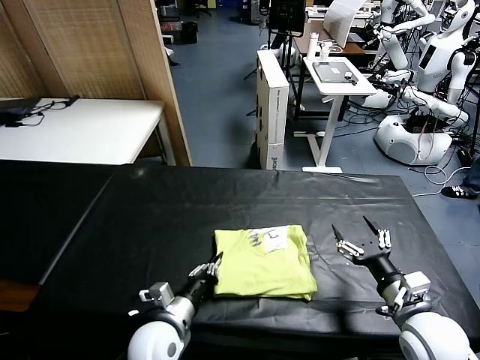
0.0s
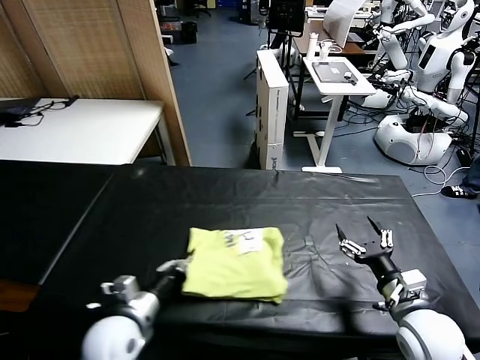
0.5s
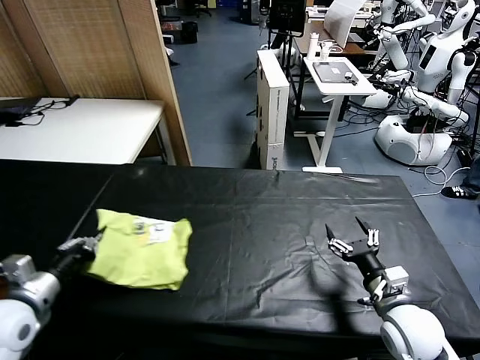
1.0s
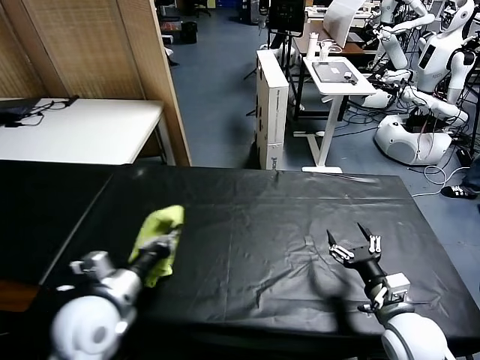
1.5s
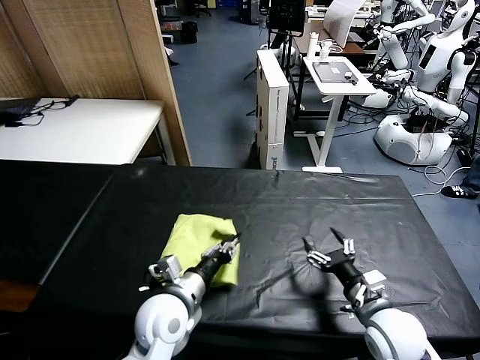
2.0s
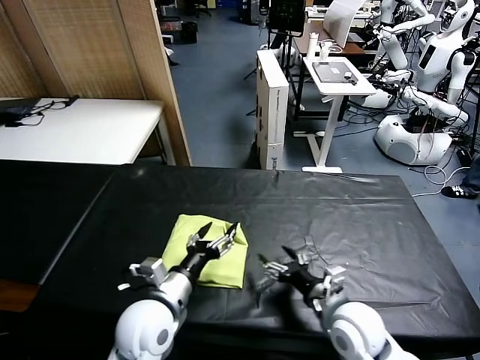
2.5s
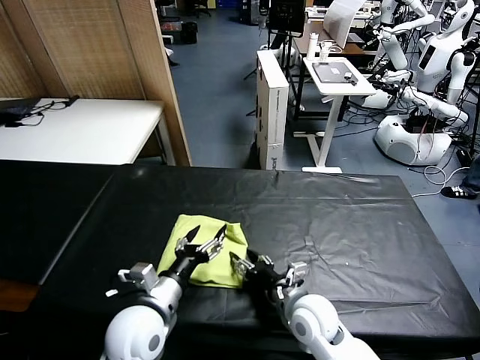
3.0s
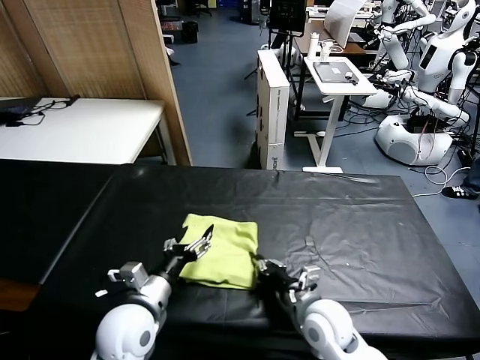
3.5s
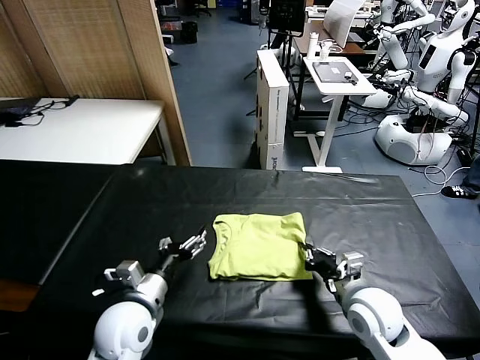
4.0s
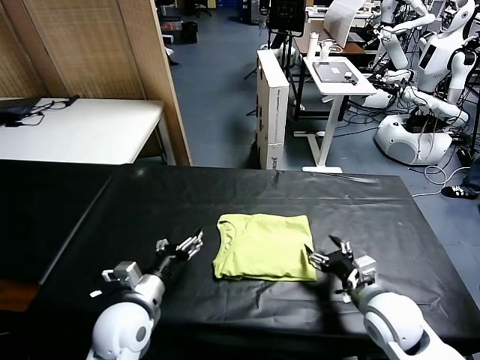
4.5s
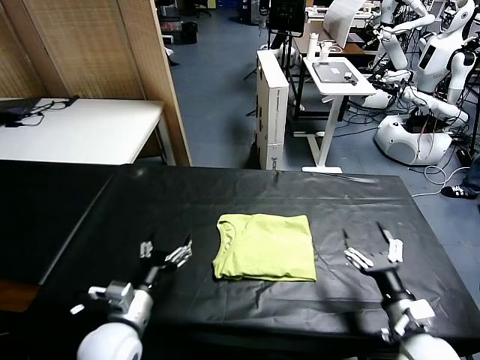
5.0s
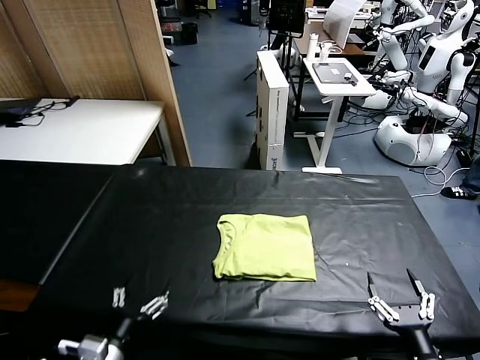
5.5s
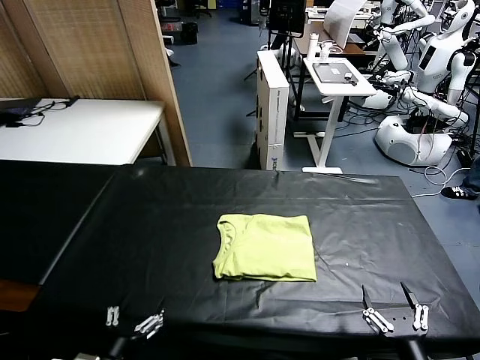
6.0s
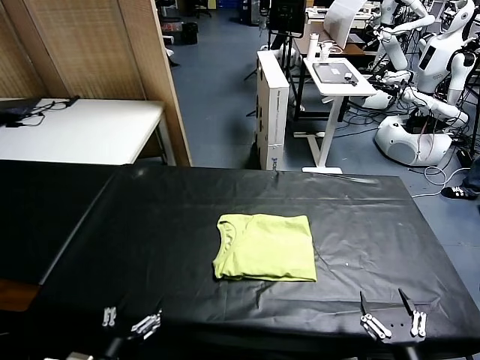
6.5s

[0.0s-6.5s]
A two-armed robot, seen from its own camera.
Task of the whole recording: fold and organize the clothes.
Step, 0.0s to 2.0s: Flip the folded clothes over with left gripper.
Step, 2.5s to 4.5s: Drag the clothes to the center of the table.
0.0s to 2.0s: The right gripper shifts by about 5 cm. The left gripper shifts approximately 5 cm upward, and moves approximately 20 cm to the left and comes back.
2.0s to 4.5s: The right gripper travels to the left and back again, about 15 cm each way, and closes, then opens again, while the left gripper shifts about 5 cm to the left, and opens its fingers.
4.5s to 6.5s: Both grippers travel together backward, approximately 20 cm.

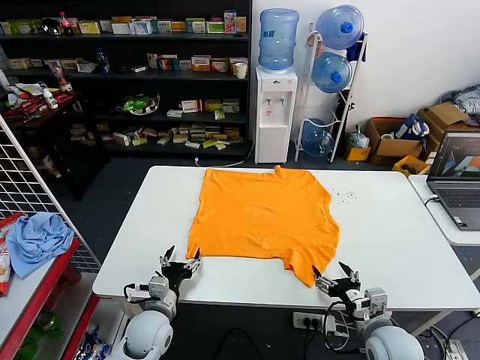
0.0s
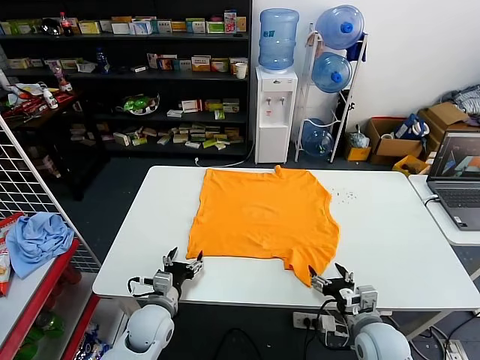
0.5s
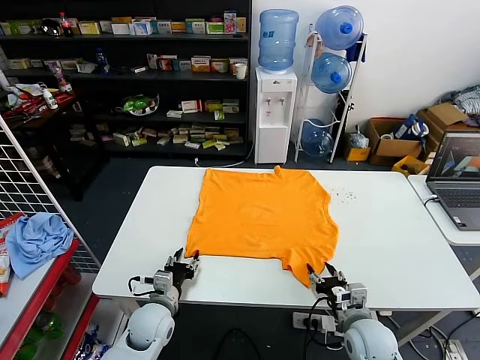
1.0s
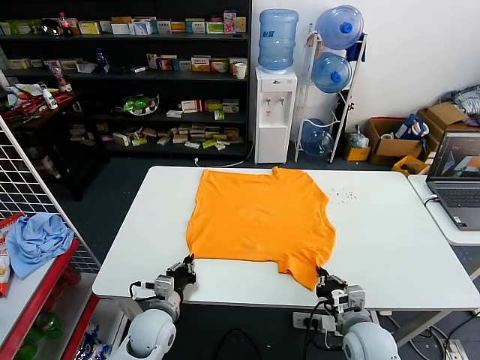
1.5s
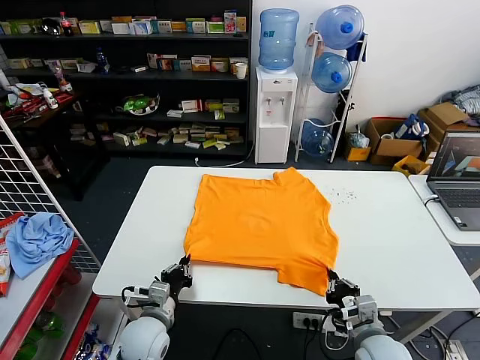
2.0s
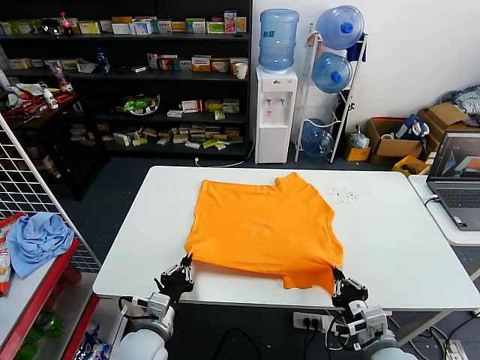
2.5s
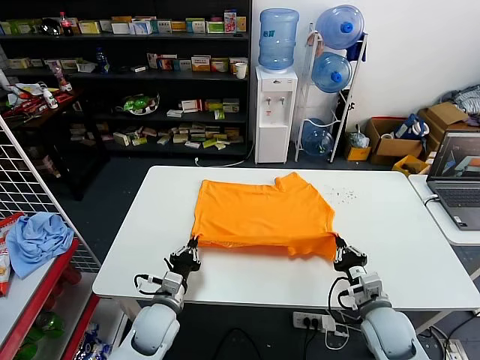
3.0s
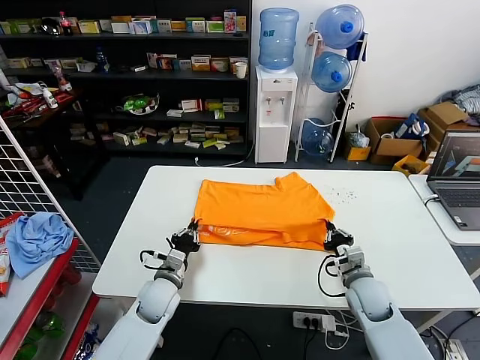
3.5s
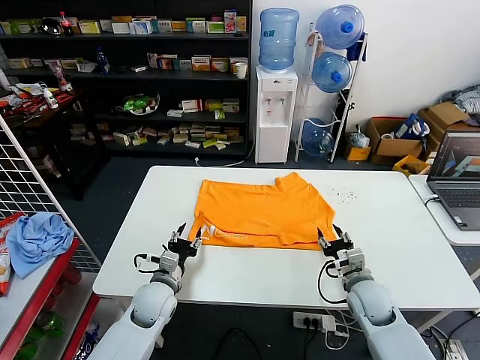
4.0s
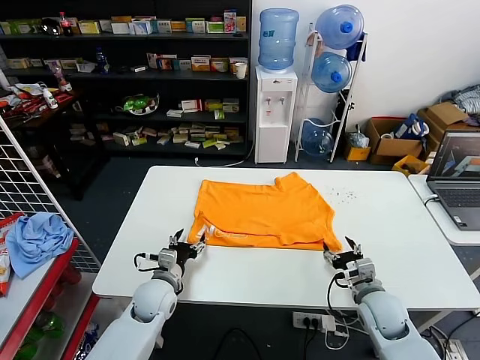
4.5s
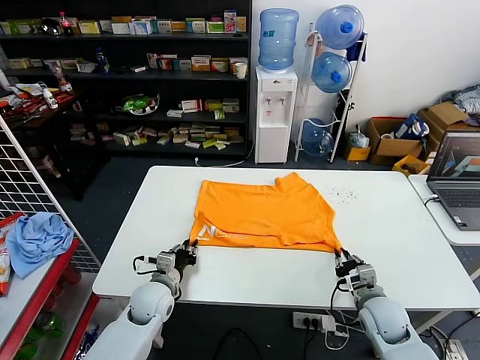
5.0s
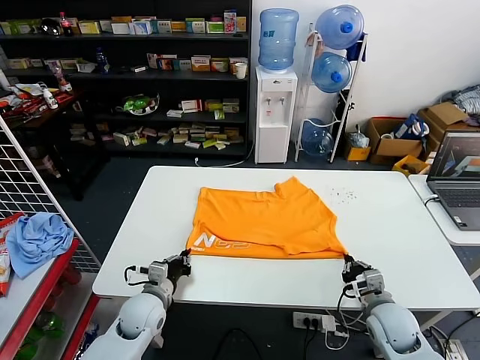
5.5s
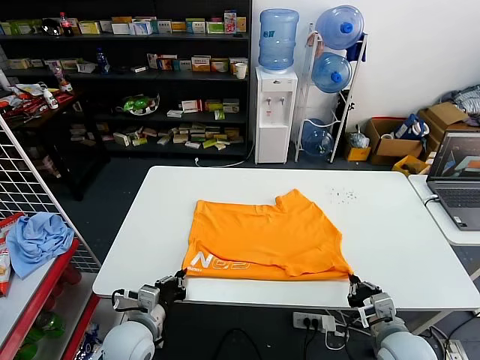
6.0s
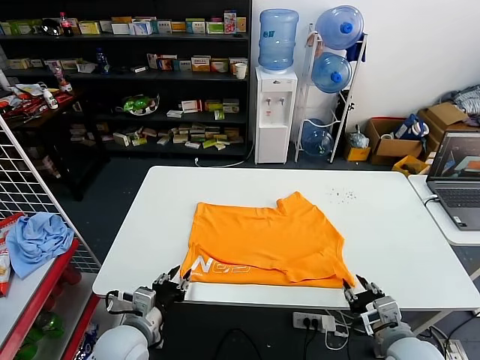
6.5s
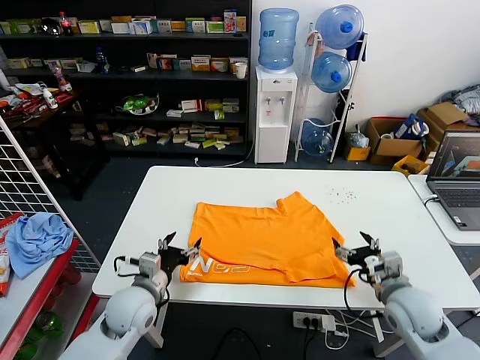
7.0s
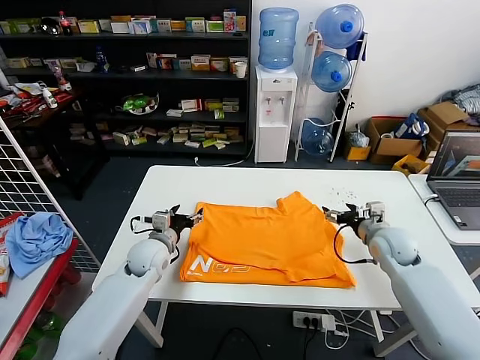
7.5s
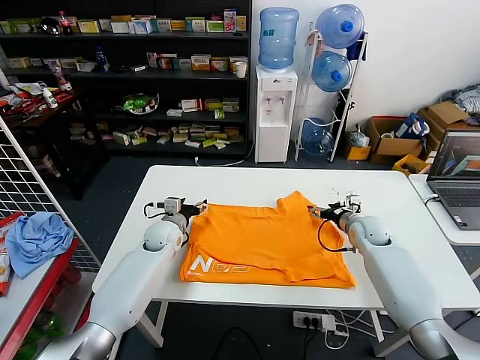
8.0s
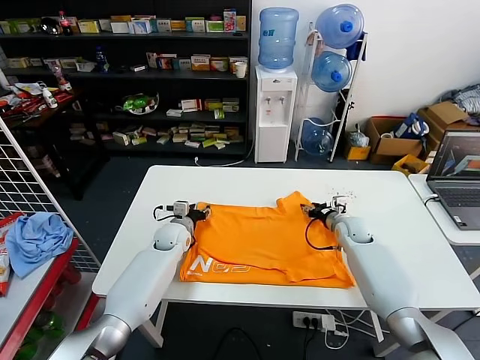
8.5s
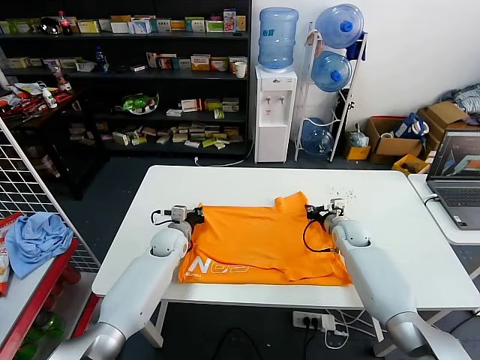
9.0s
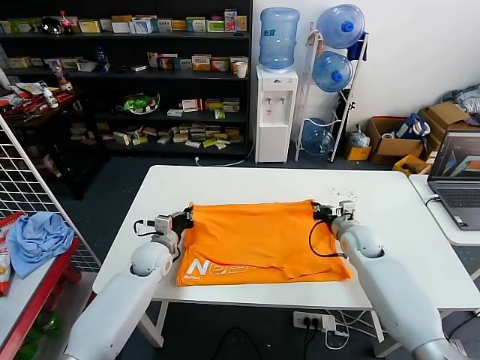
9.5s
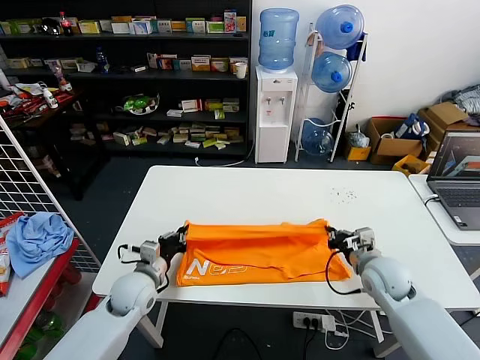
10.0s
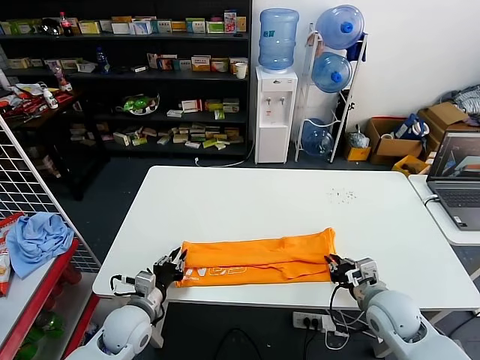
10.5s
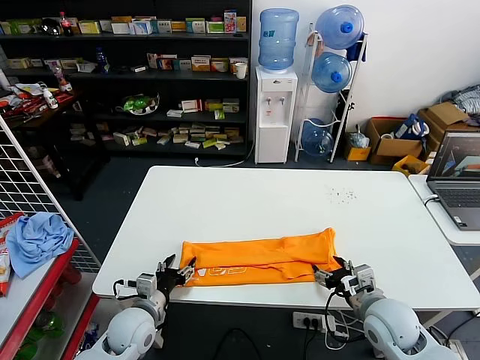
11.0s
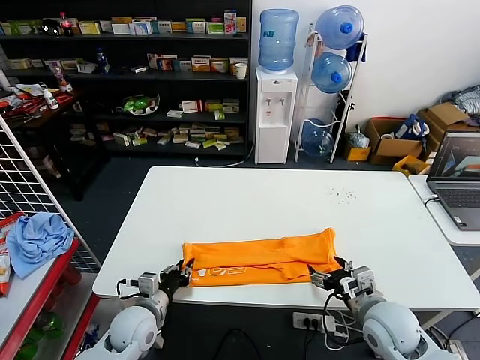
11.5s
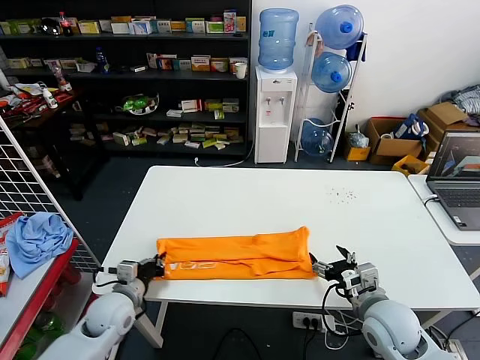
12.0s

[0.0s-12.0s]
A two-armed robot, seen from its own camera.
Task of the whole recording: fold and organize the clothes.
Step, 0.0s to 1.0s: use both grippers simultaneously to clamp the lower edge of the clothing fabric.
Step, 1.5s to 3.5s: use both grippers to drag the lower edge of the fabric forward and fold it over the upper edge.
Step, 4.0s to 6.0s: Drag the clothes downward with both gripper.
Step, 6.5s to 8.5s: use both grippers simultaneously to clamp the upper edge of the clothing fabric.
Step, 9.5s to 10.5s: use both grippers to drag the upper edge of the fabric backward and fold it over the lower edge.
2.0s to 4.0s: The right gripper heads forward, covering about 10 cm, and opens; the left gripper shifts approximately 10 cm forward, and opens its fingers.
4.0s to 6.0s: Both grippers travel together backward, approximately 10 cm. The right gripper closes up; the left gripper closes.
6.0s to 8.0s: Both grippers move forward, roughly 25 cm. The left gripper opens its fingers; the right gripper opens its fingers.
8.0s to 10.0s: Both grippers travel together backward, approximately 15 cm. The right gripper closes up. Meanwhile the left gripper closes up.
10.0s to 12.0s: The right gripper is displaced backward by some 10 cm, and opens, while the left gripper goes approximately 5 cm backward, and opens, then closes again.

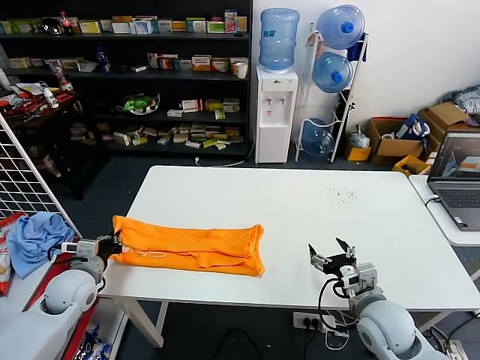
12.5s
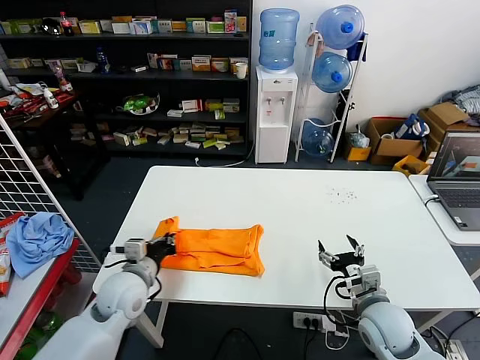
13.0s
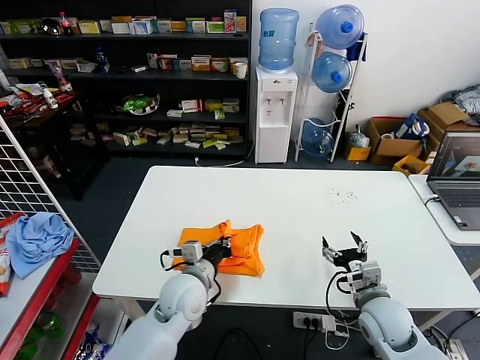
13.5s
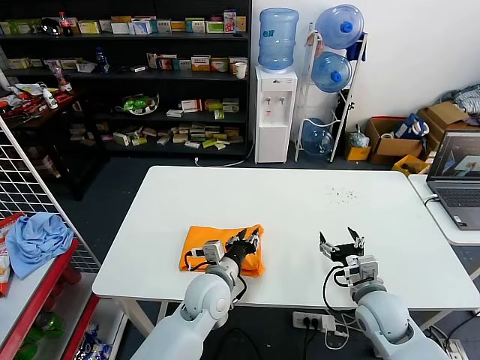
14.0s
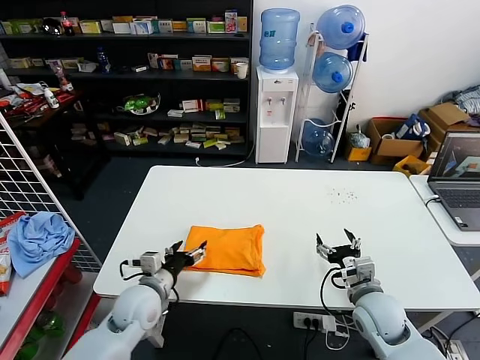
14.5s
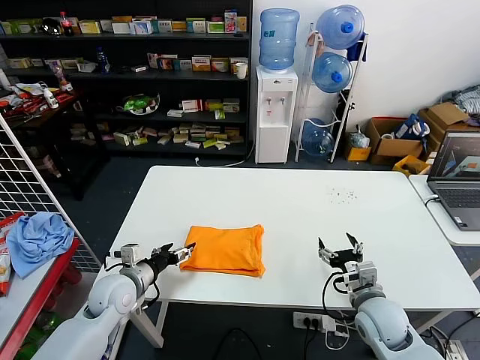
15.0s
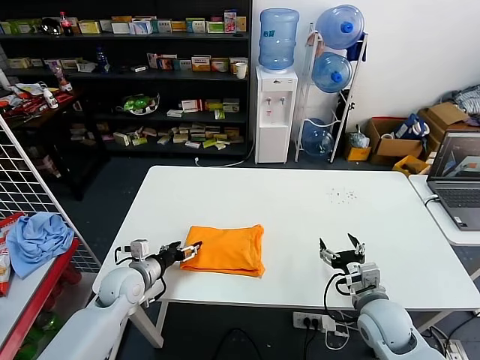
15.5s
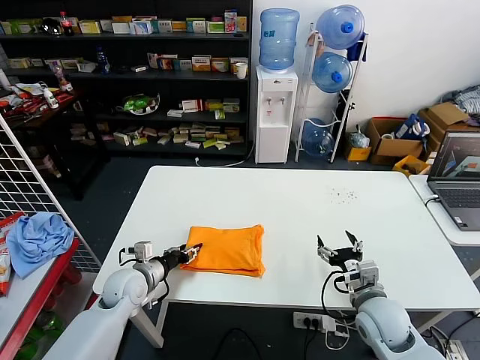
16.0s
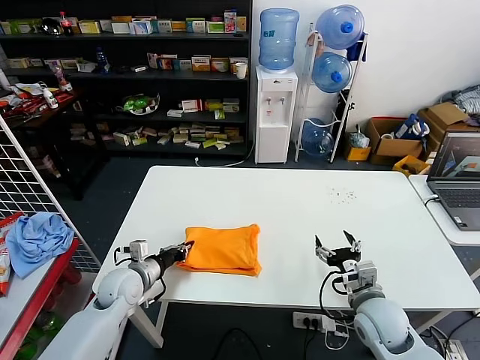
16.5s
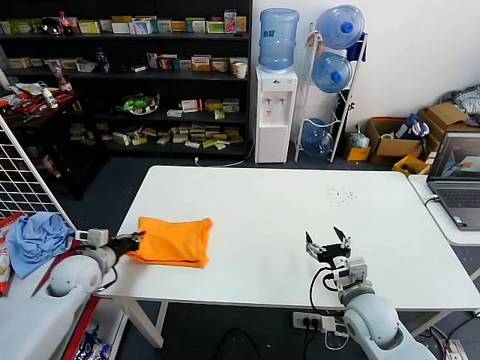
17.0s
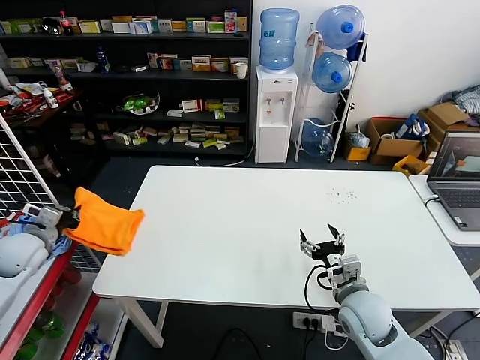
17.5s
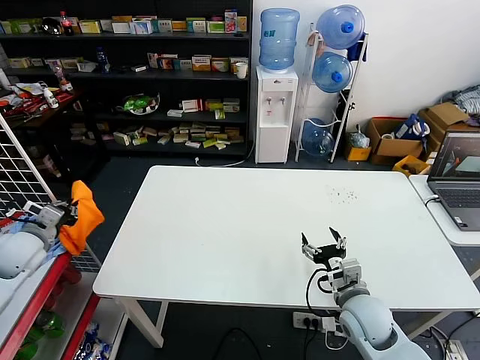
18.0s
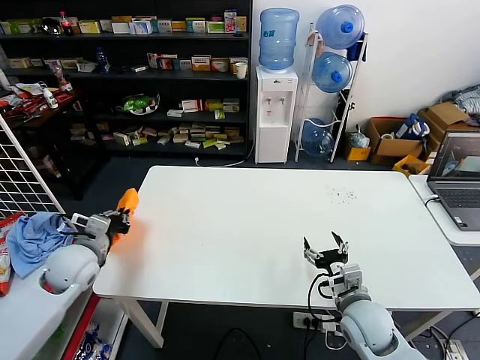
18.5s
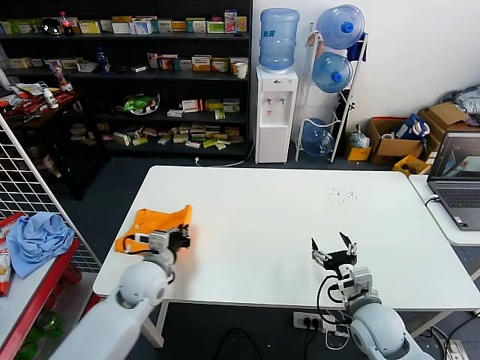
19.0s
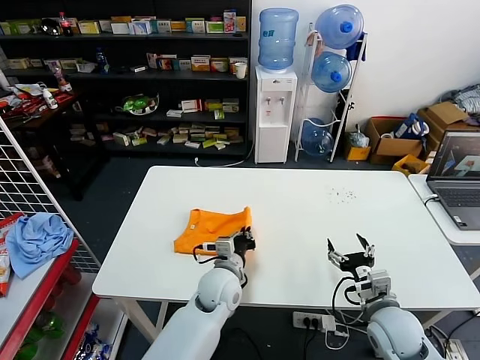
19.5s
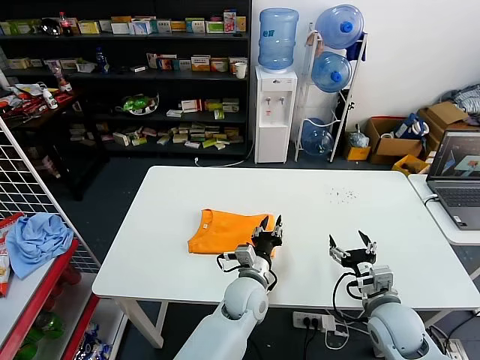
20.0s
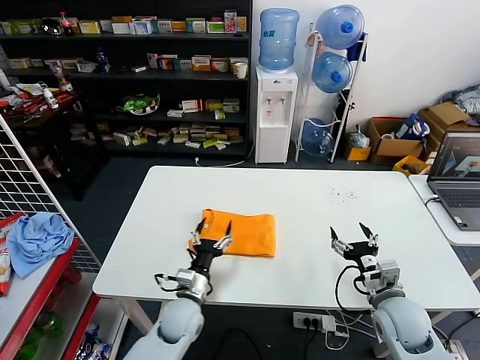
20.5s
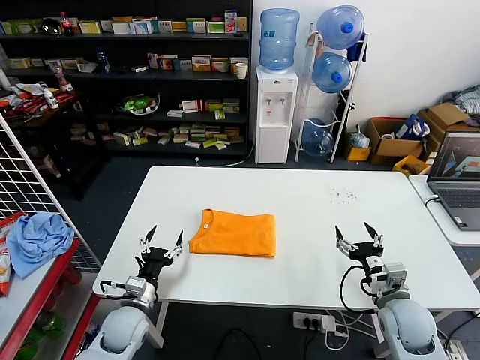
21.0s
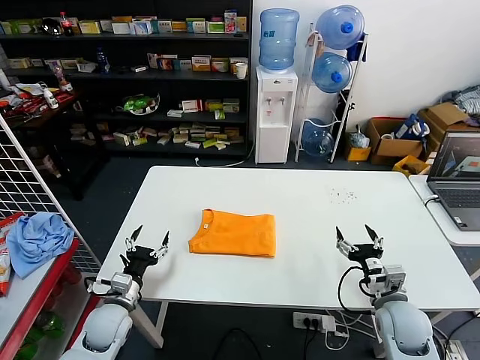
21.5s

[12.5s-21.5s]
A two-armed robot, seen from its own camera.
Task of the whole recording: fold and organize the clothes.
Step, 12.5s to 14.0s: use the left gripper to drag the left edge of the fabric to the left and folds it over the right edge.
Step, 14.5s to 19.5s: Flip the folded clothes over with left gripper.
12.5s to 14.5s: The left gripper shifts about 15 cm to the right, and opens.
14.5s to 17.0s: The left gripper is displaced to the left by about 15 cm, and closes.
17.0s to 19.5s: The left gripper shifts some 30 cm to the right.
19.5s to 21.5s: The left gripper goes roughly 25 cm to the left, and opens its fingers.
